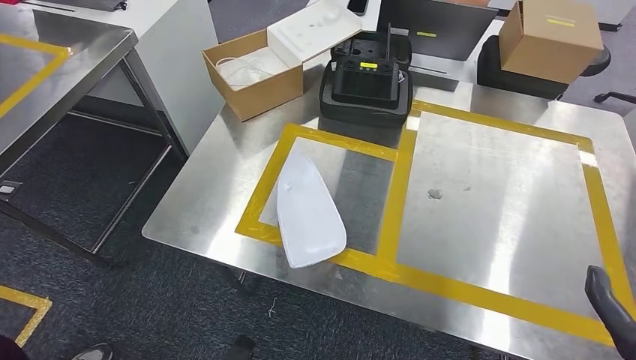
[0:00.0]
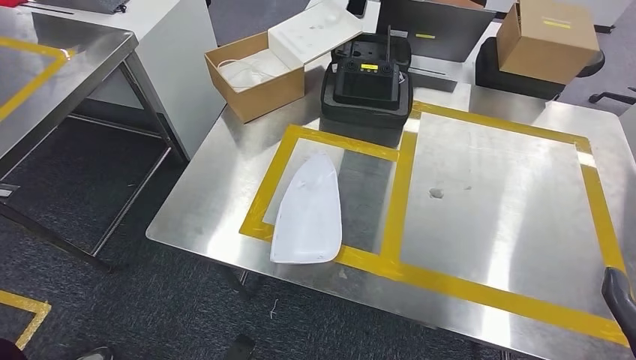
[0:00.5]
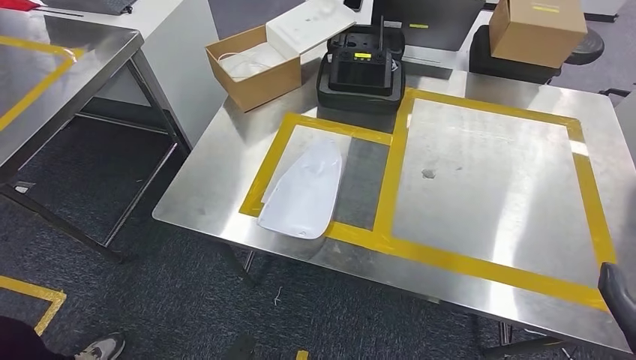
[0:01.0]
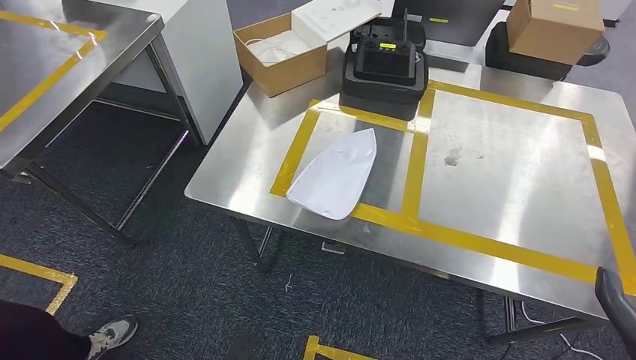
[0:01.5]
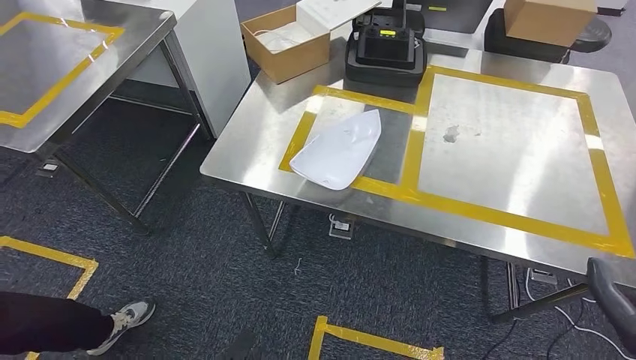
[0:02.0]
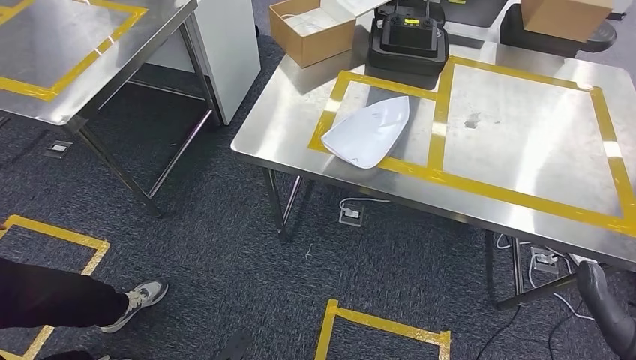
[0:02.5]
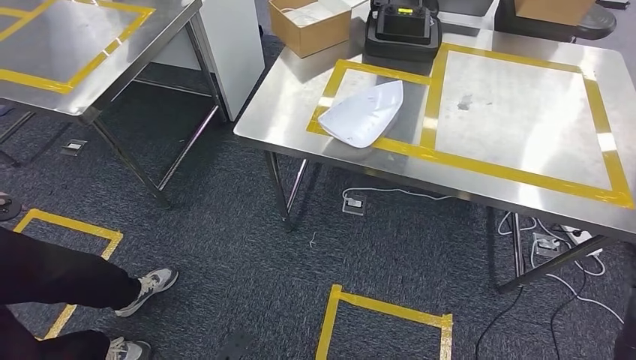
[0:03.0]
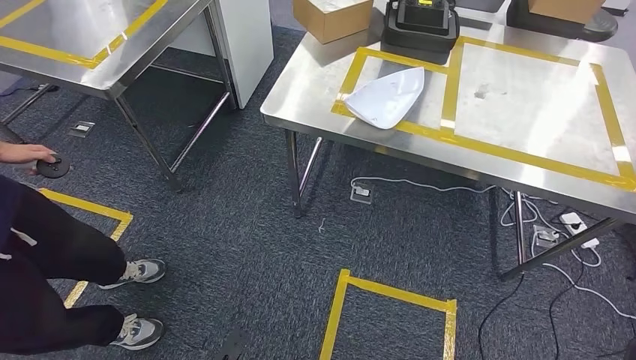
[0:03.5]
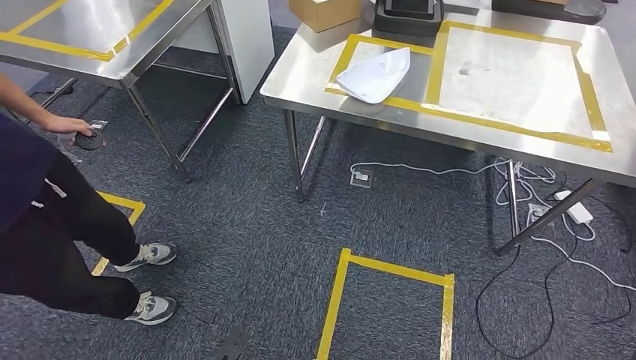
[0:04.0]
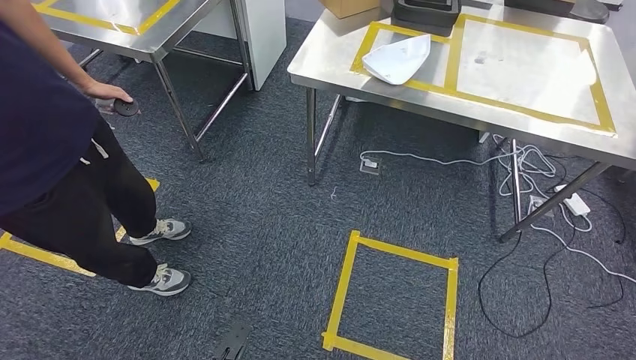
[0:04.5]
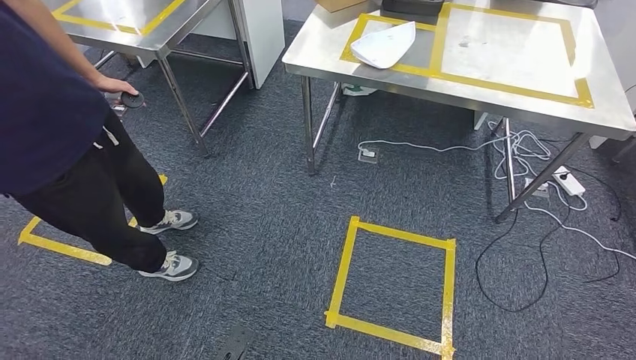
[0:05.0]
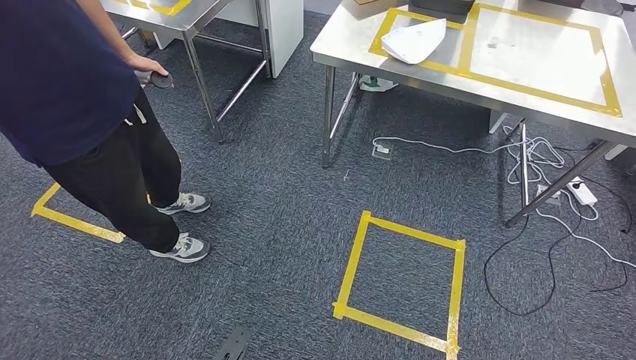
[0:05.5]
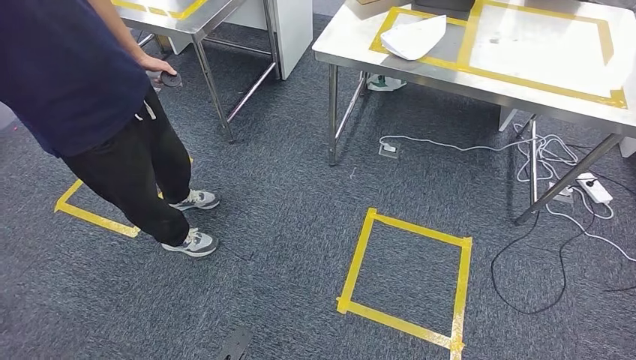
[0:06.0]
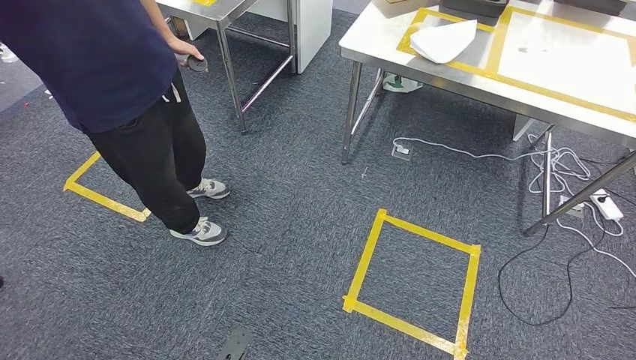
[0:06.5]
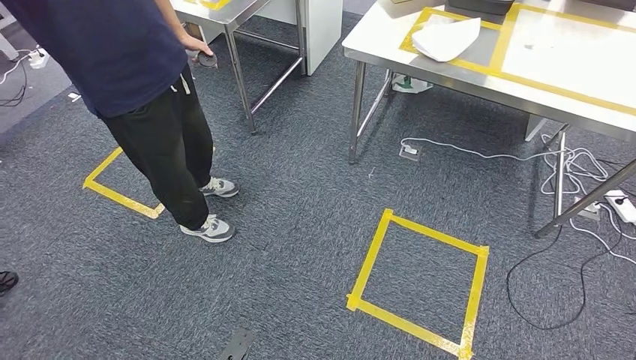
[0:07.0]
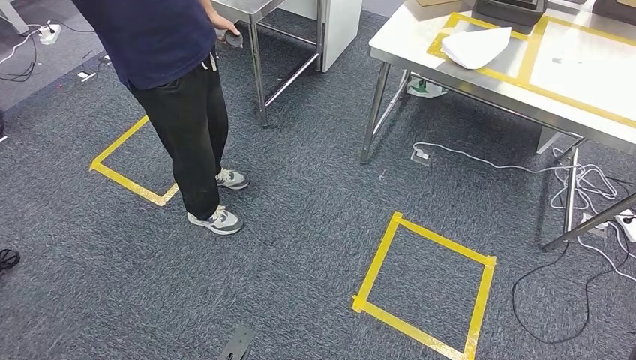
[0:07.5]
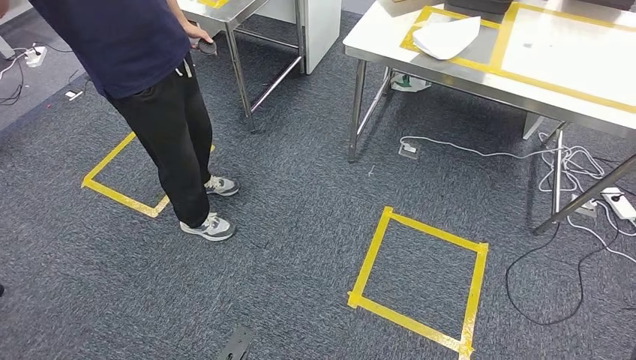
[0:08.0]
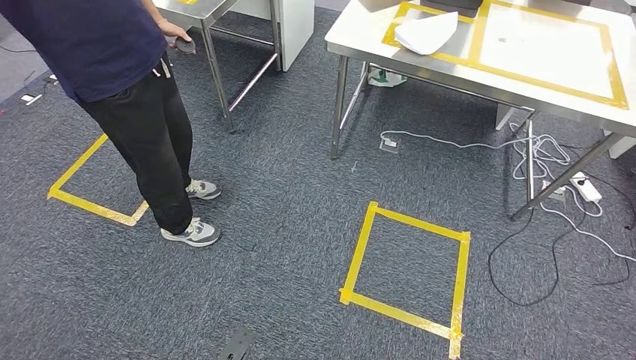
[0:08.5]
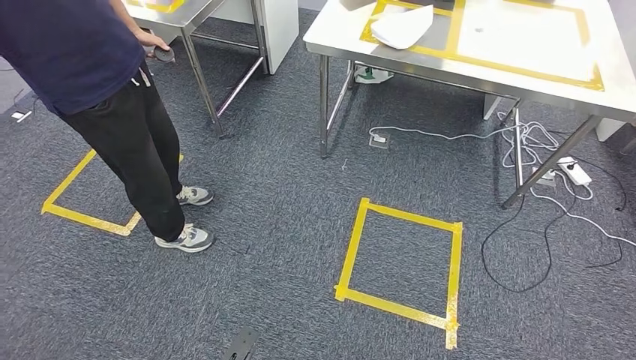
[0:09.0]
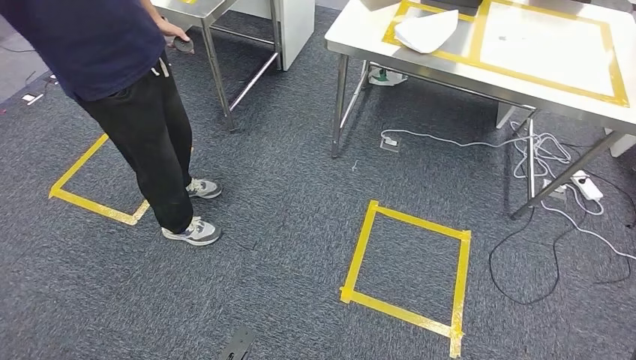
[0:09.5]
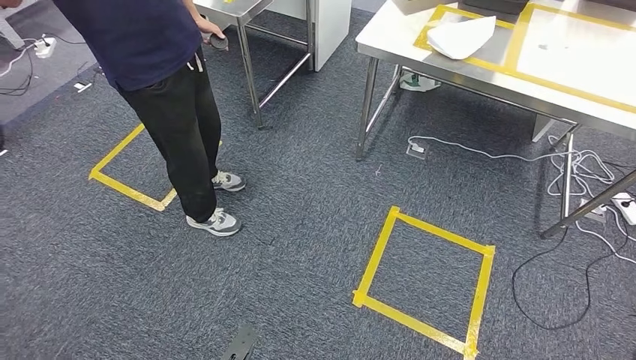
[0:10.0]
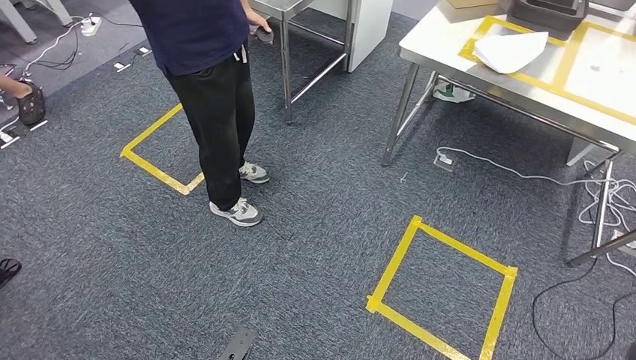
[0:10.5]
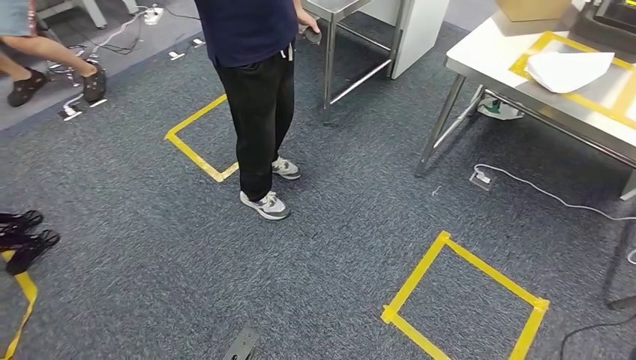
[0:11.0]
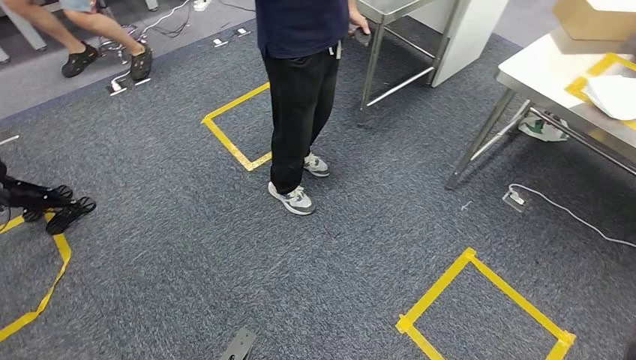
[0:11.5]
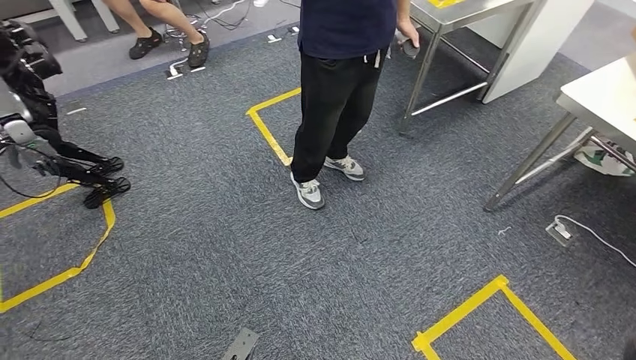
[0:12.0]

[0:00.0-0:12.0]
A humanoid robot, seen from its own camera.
Step, 0:00.0 to 0:07.0: Insert the small component into the corresponding slot on the workbench.
0:08.0 to 0:10.0: Both hands stay put.

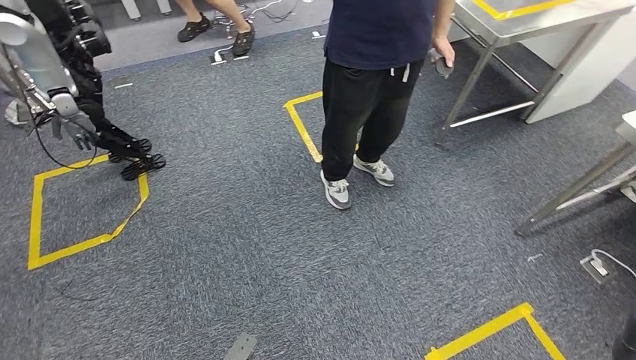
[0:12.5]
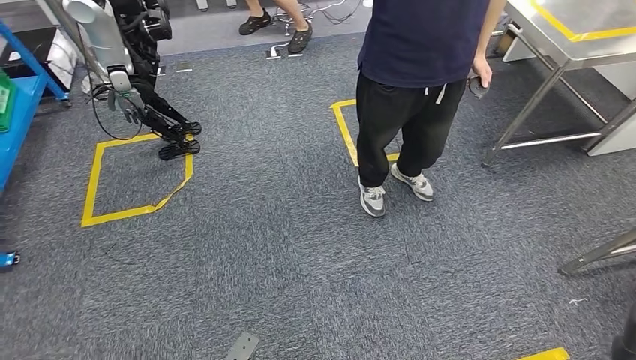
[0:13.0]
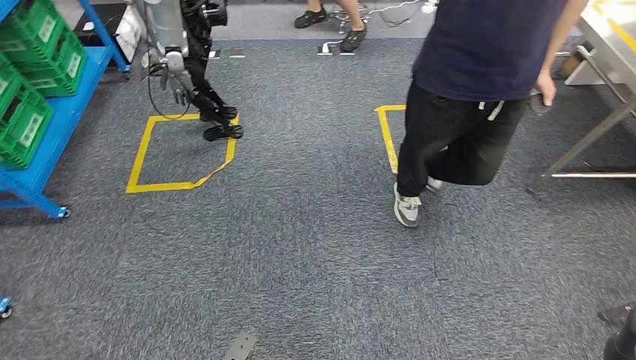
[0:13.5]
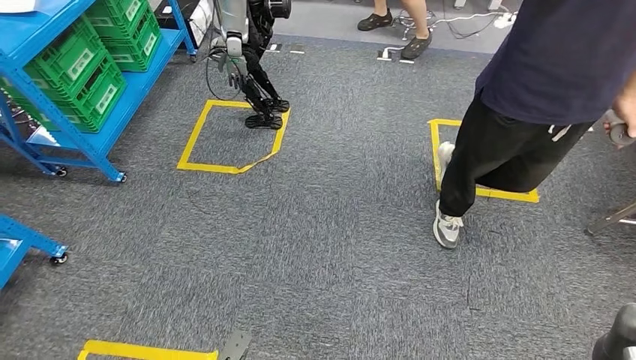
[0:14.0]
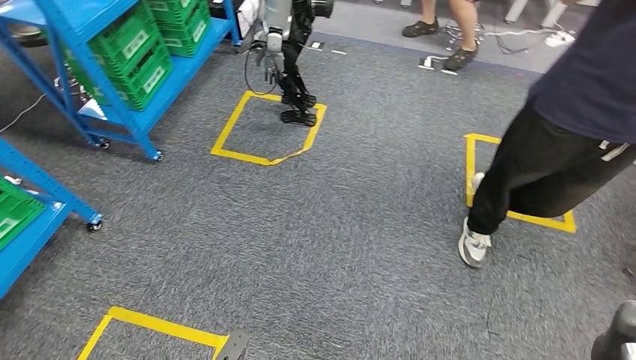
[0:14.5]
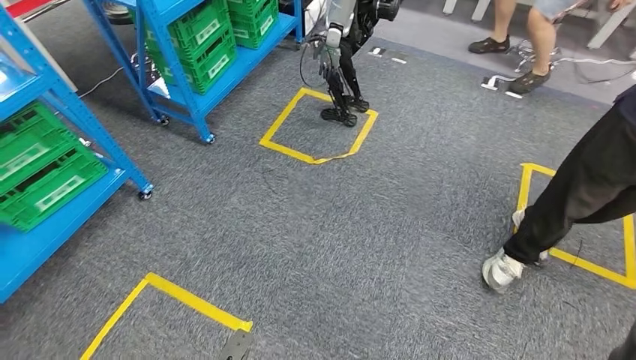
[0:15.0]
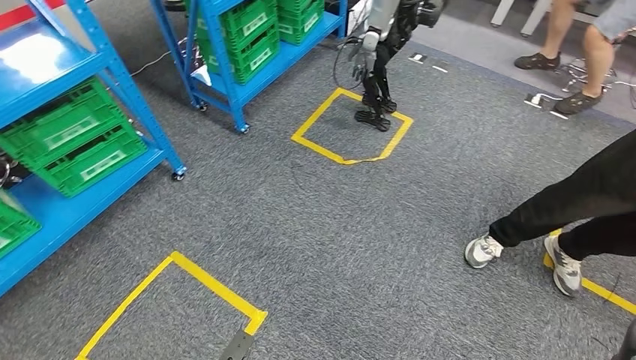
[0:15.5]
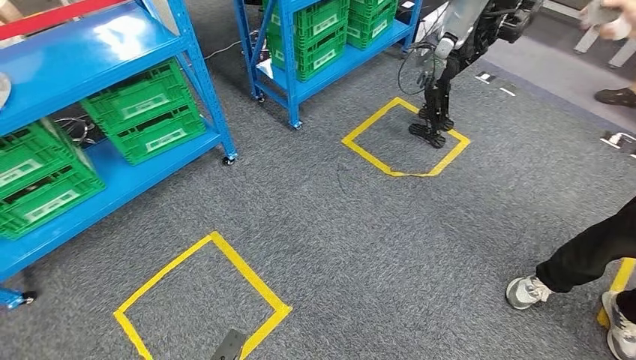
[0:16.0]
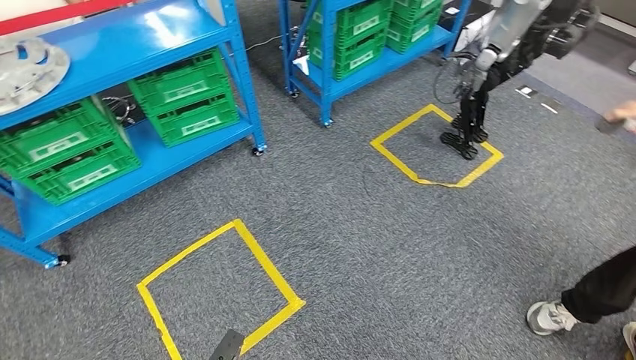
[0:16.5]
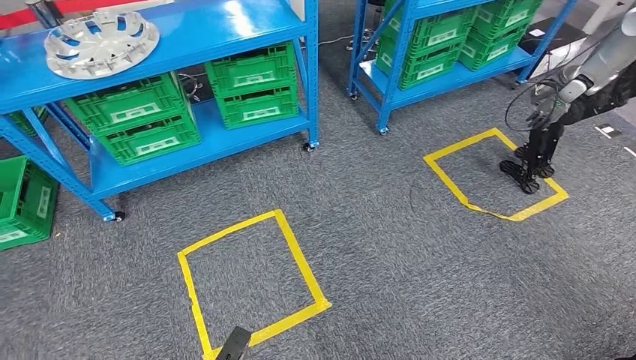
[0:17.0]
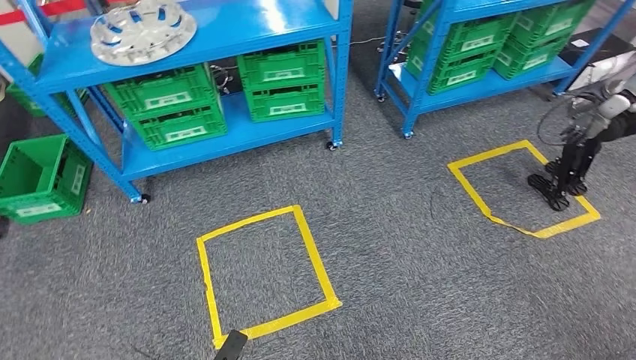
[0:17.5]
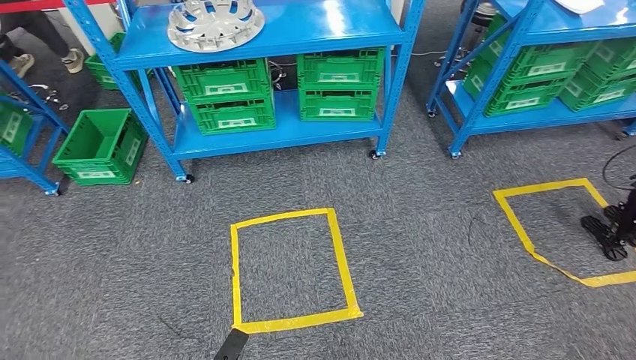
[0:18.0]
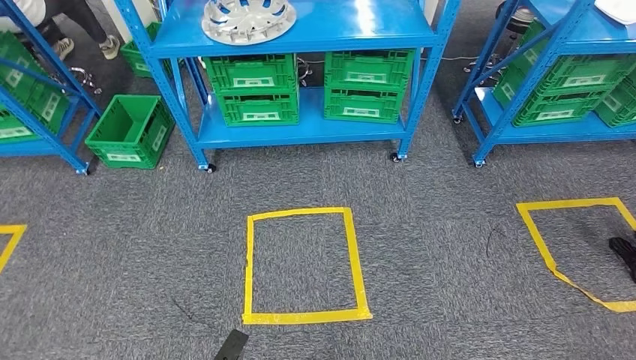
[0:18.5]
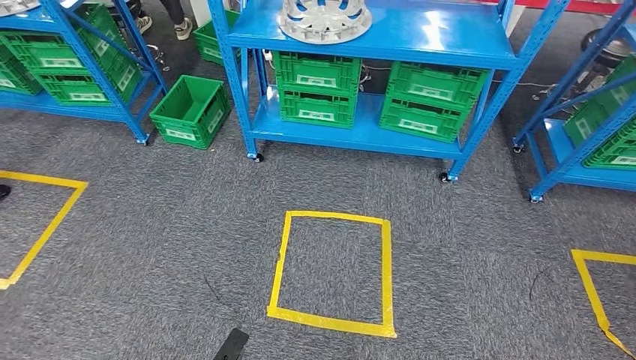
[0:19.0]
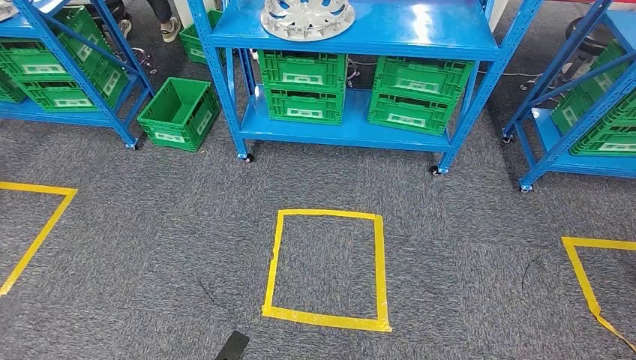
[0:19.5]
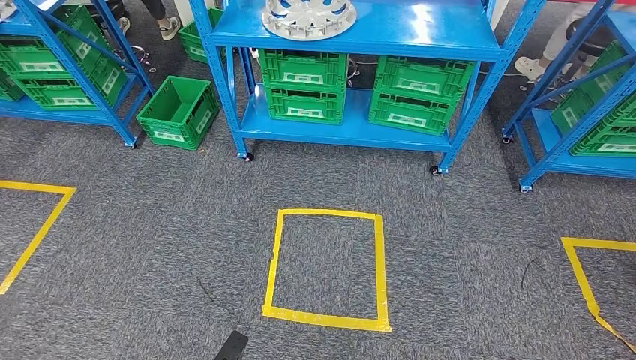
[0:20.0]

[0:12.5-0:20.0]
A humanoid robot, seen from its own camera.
Step, 0:12.5 to 0:19.5: Return to the initial position at the workbench.

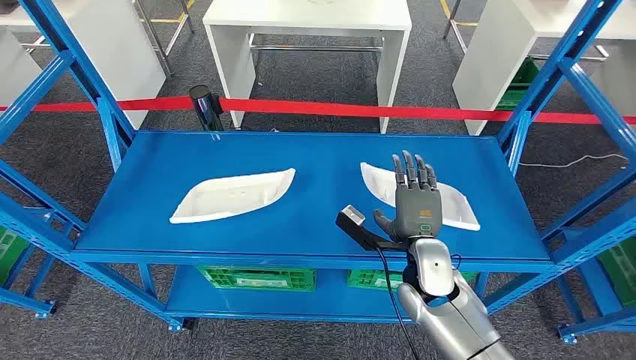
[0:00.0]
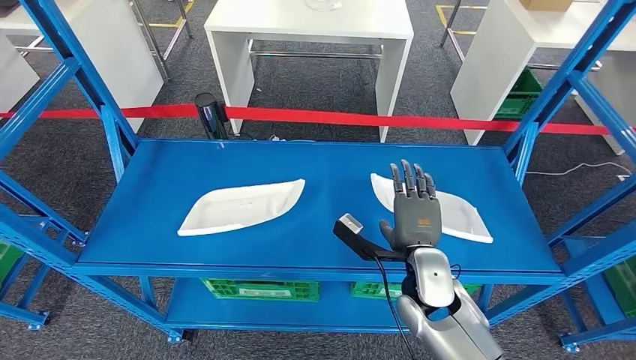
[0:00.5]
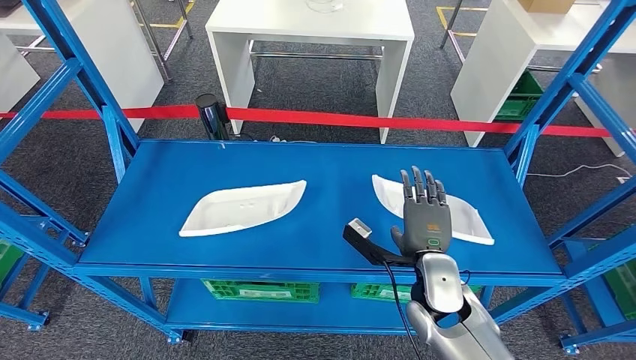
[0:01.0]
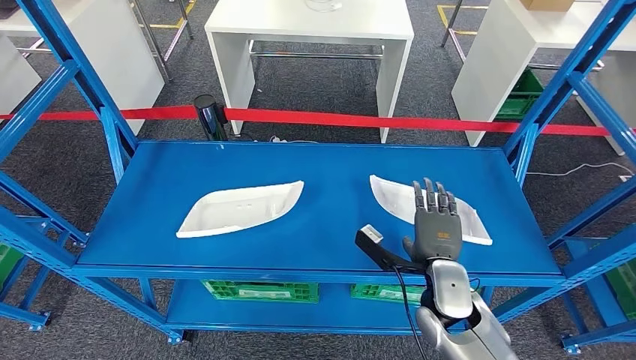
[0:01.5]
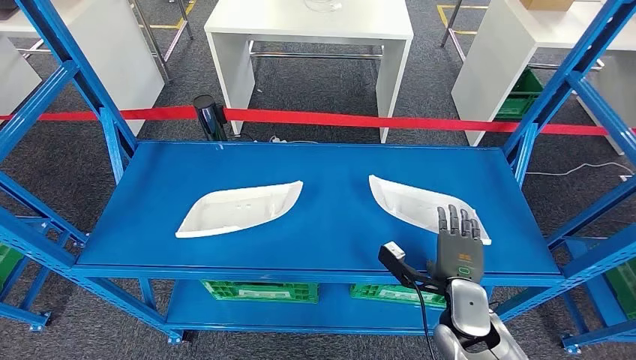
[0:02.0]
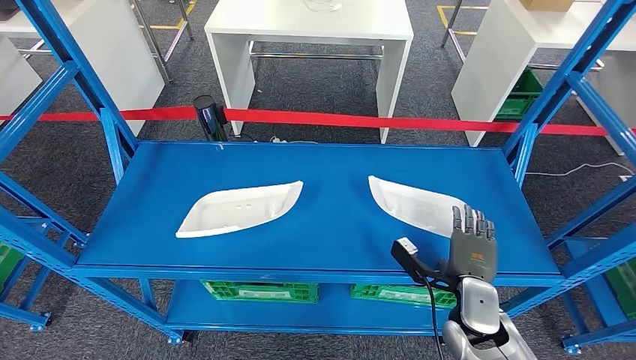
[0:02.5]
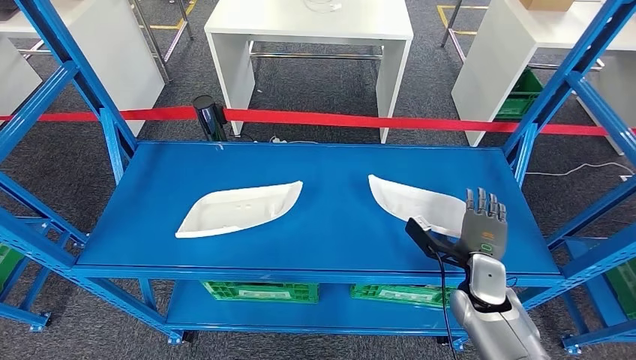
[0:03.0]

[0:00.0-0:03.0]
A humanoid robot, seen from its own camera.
0:01.5 to 0:03.0: The right hand travels to the right by approximately 10 cm.
